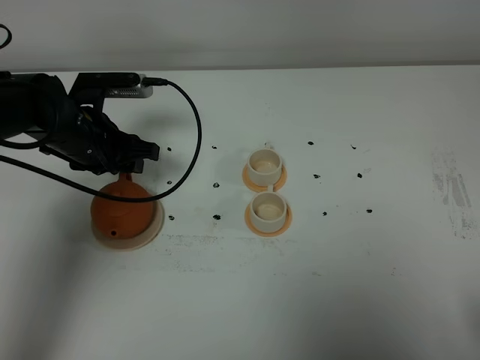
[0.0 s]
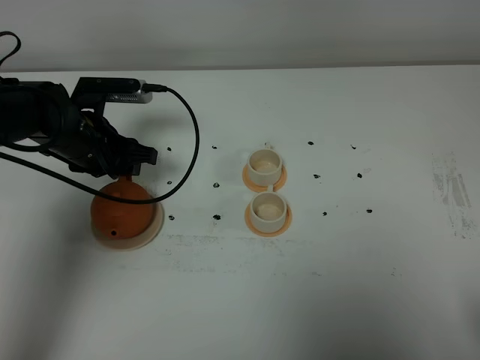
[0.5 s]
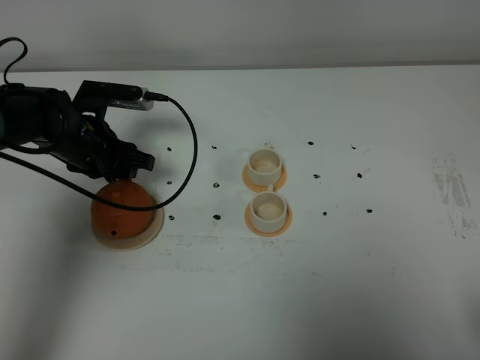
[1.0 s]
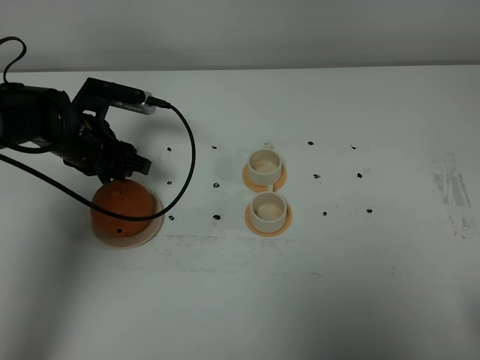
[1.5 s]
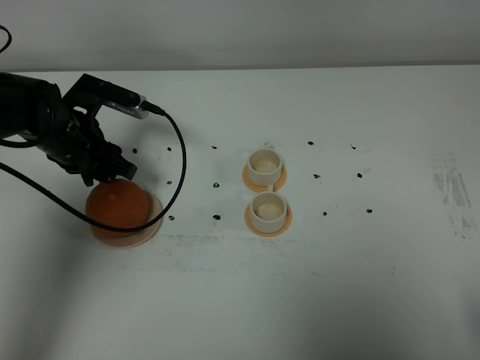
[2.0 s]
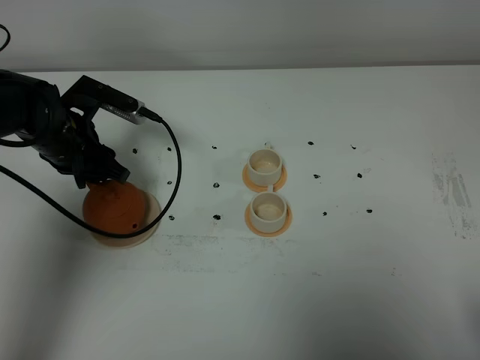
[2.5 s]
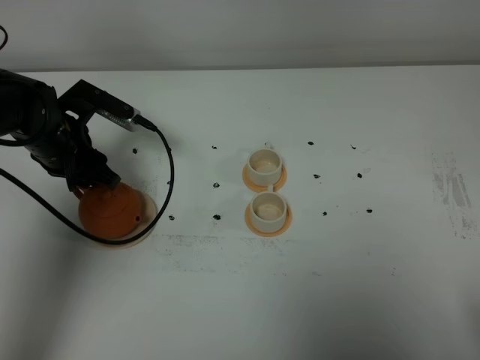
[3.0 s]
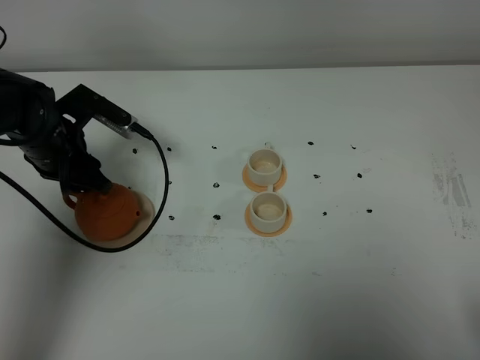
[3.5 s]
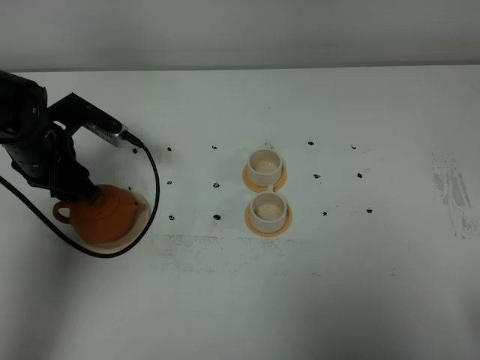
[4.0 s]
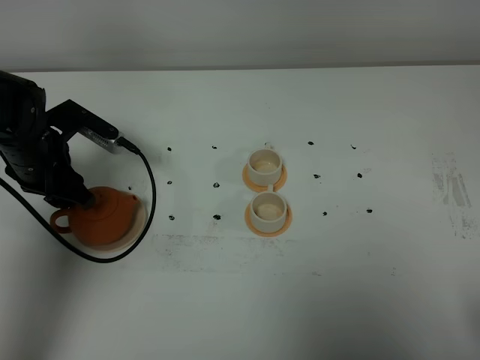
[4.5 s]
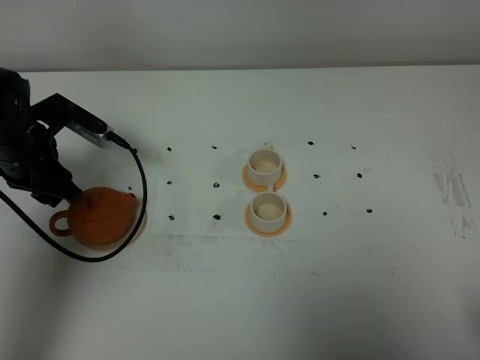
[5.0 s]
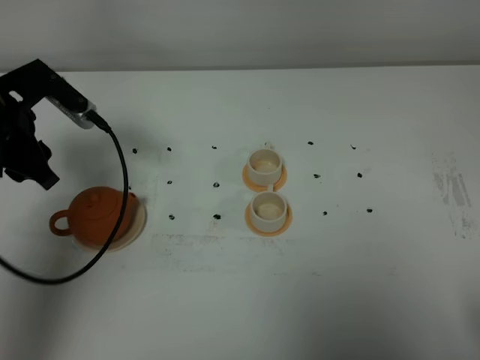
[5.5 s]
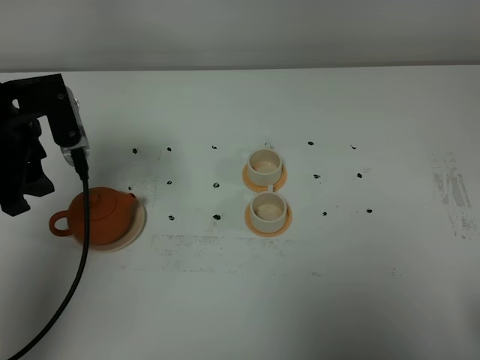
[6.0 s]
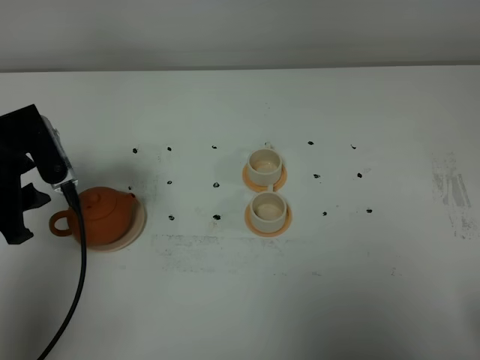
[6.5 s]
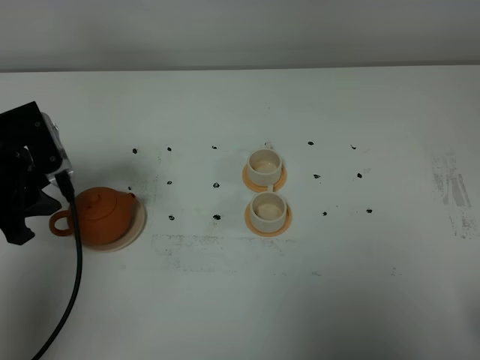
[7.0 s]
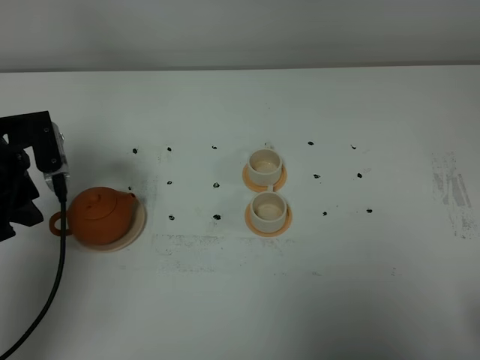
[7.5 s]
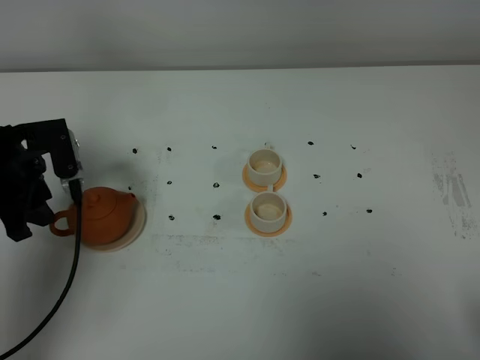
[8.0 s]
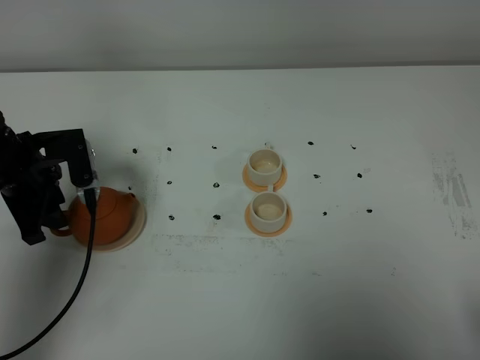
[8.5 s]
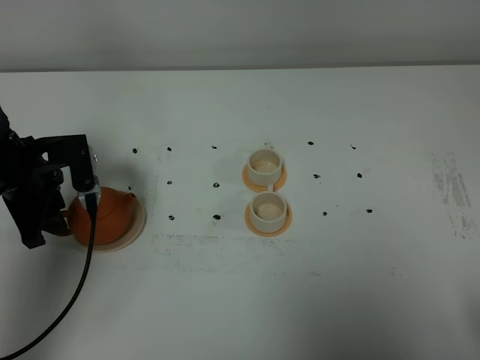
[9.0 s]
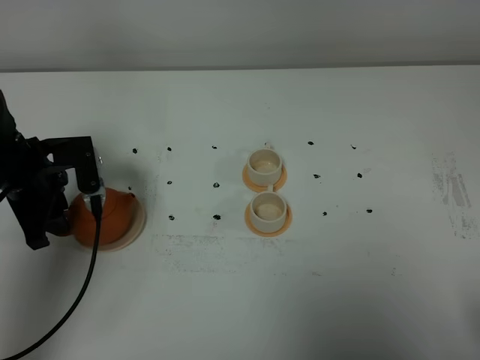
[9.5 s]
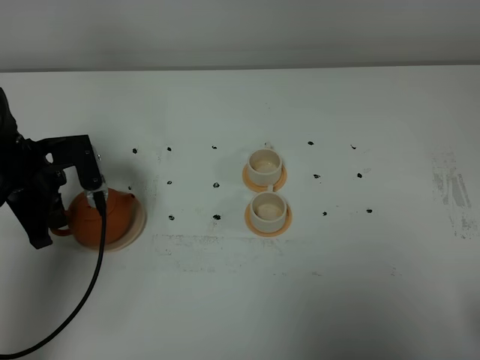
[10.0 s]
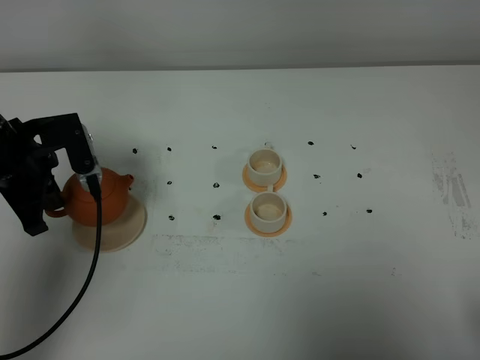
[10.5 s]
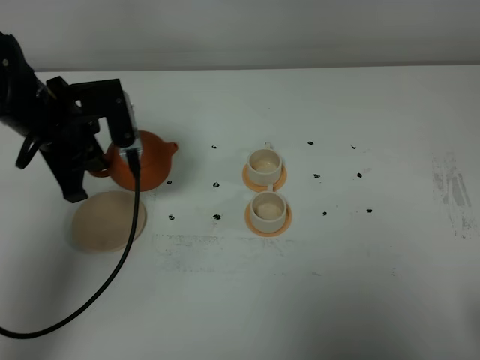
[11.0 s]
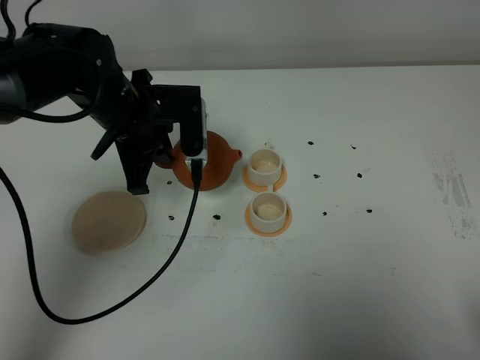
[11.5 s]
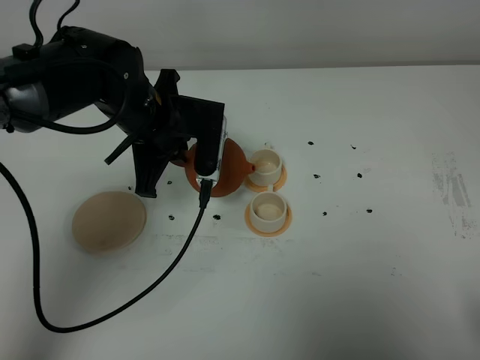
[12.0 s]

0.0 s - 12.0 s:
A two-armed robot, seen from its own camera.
Task of the whole recording: grasp the brown teapot and pour the tea into the two white teacups one by one, put the brown teapot back in its original place.
Step, 0.0 s - 10.0 s: Pick up the teapot with the left gripper.
2.0 s - 4.0 s: The grippers stay close to where they were, moving slightly.
4.0 s - 6.0 s: The left gripper is displaced upward and backward by approximately 10 cm.
6.0 s - 8.0 s: The left gripper moves downward, roughly 10 cm.
8.0 s - 10.0 s: The left gripper closes.
10.0 s - 12.0 s: The left gripper moves to the right, about 15 cm.

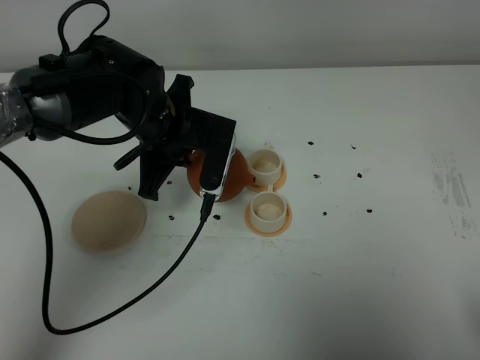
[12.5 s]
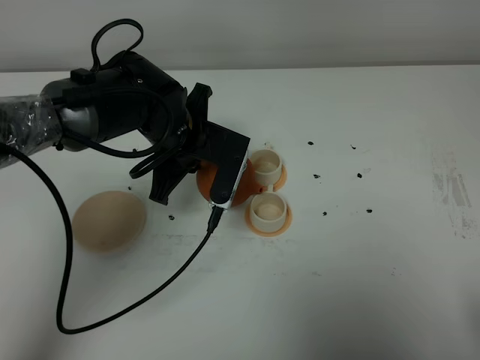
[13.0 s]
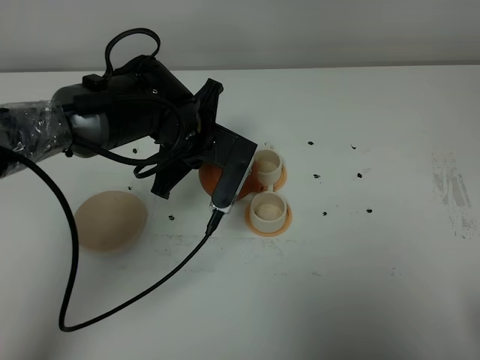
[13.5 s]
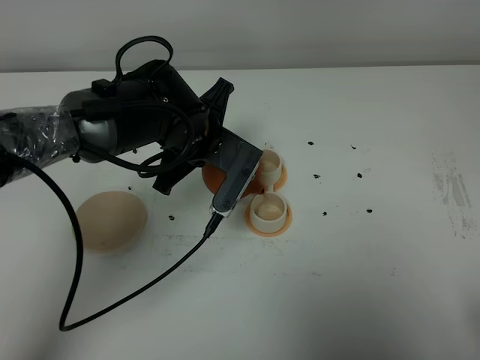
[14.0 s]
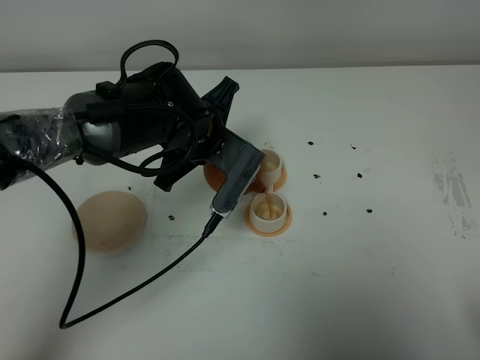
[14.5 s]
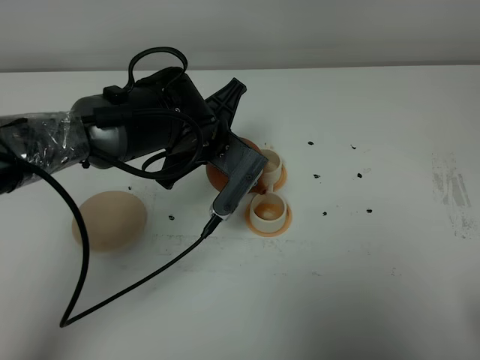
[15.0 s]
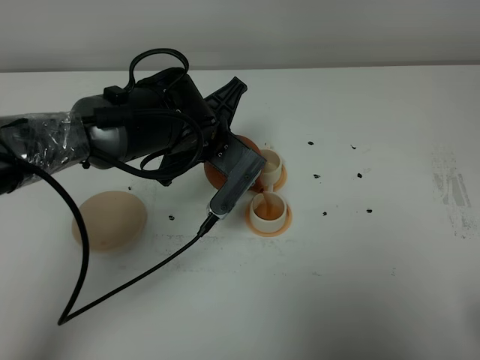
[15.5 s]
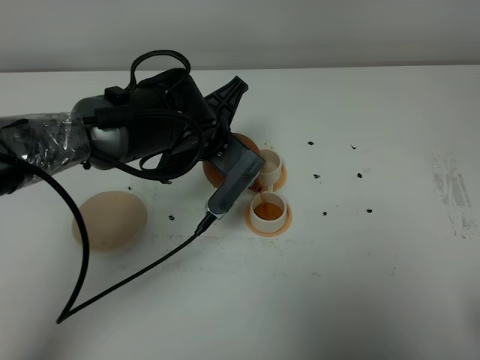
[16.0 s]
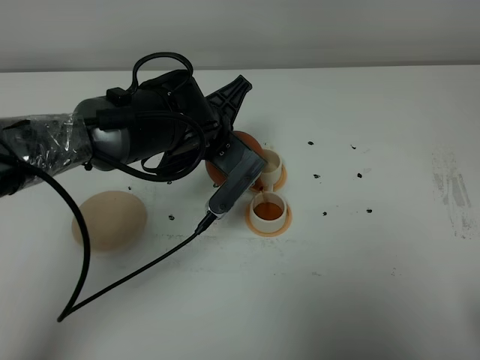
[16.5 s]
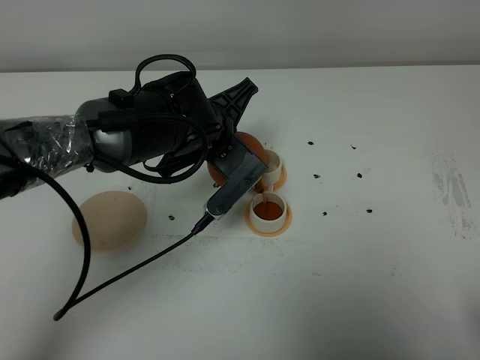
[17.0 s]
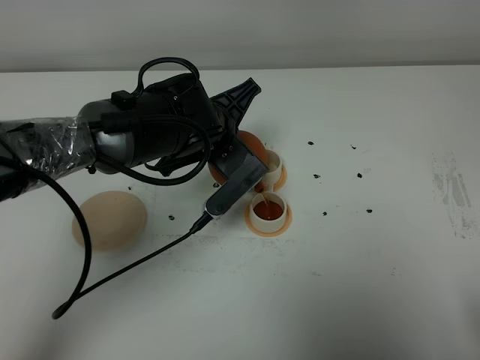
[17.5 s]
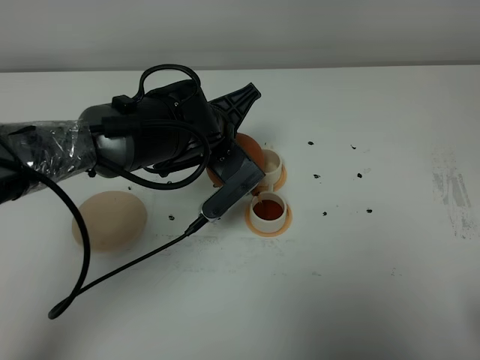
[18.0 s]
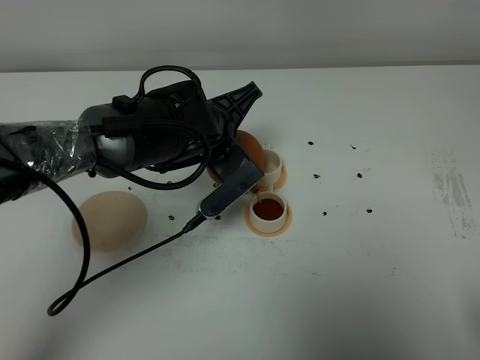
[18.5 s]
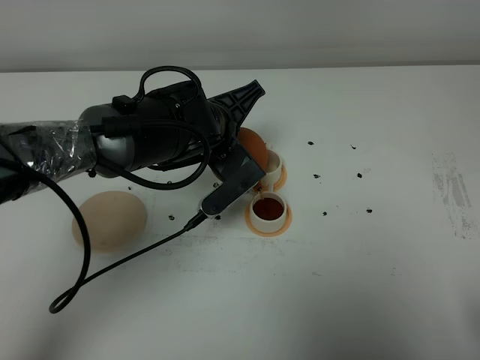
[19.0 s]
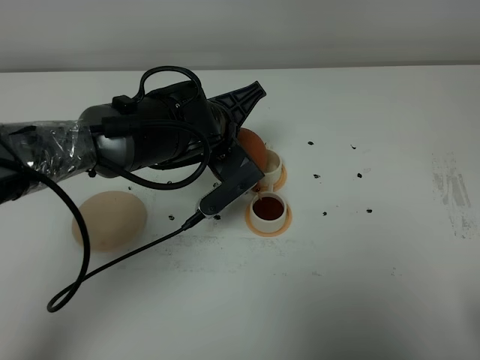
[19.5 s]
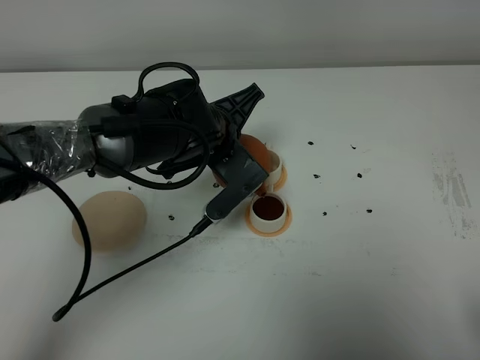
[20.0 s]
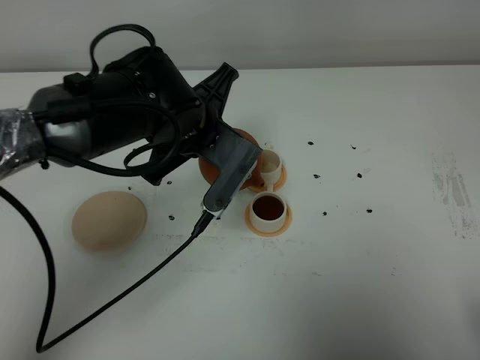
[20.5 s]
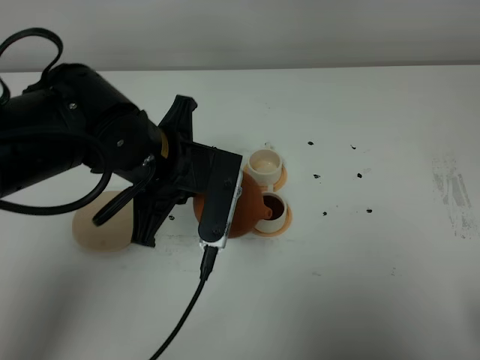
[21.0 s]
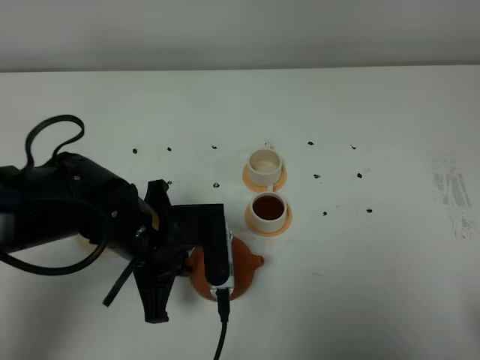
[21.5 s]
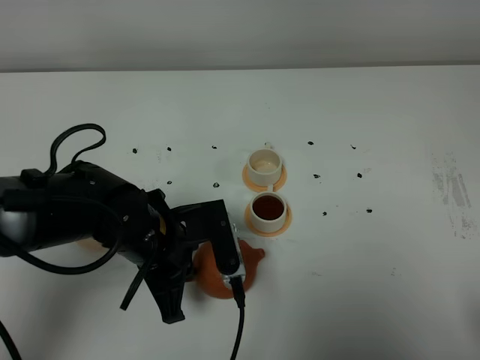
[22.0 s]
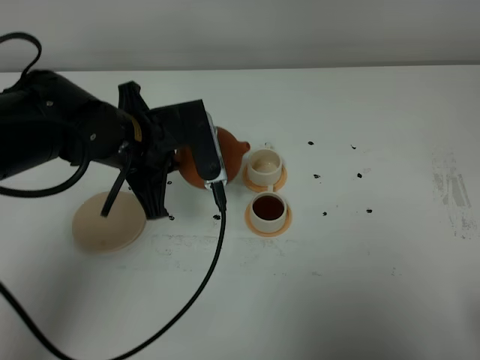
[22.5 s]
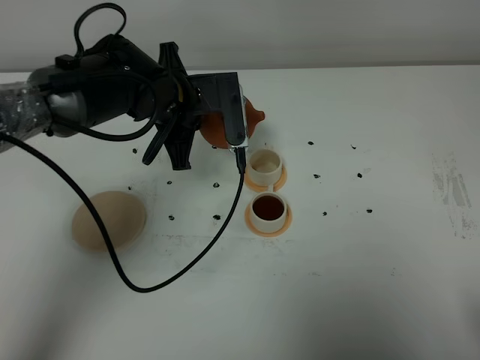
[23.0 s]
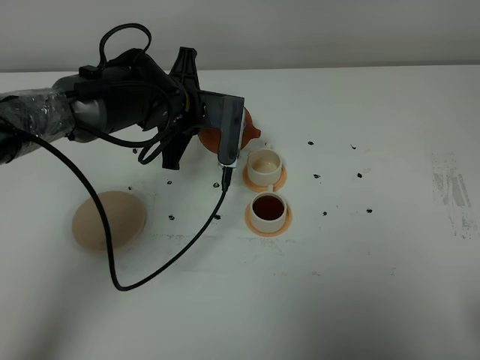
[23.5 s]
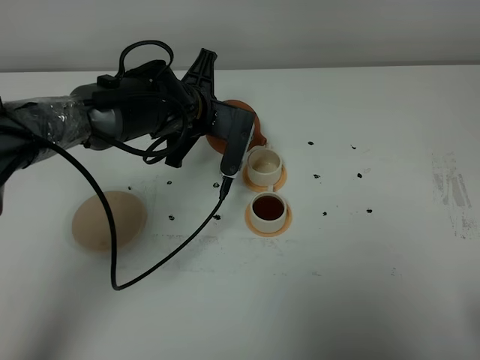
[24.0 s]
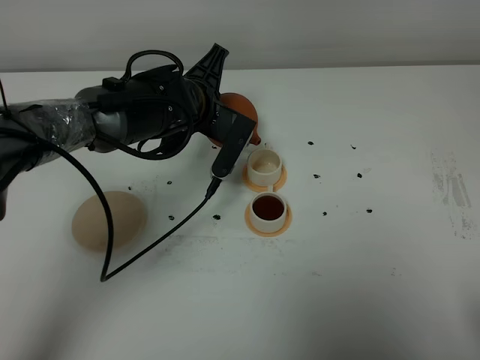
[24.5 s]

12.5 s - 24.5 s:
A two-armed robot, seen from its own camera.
Task of the whole recording: grasp the brown teapot and pour the tea into the two white teacups one by one, put the brown teapot back in its original place.
14.5 s - 16.5 s: There are only small adjustments of the grippers.
16.5 s - 20.5 s: The grippers stay close to where they were, moving slightly.
20.5 s - 22.5 s: The left gripper travels to the left by approximately 5 cm, and moves roughly 10 cm backward and comes back.
22.5 s - 24.5 s: The left gripper is displaced forward and to the right by approximately 10 cm.

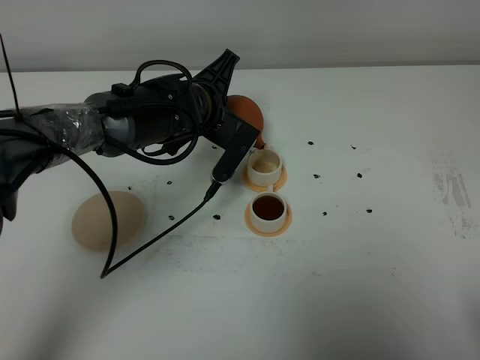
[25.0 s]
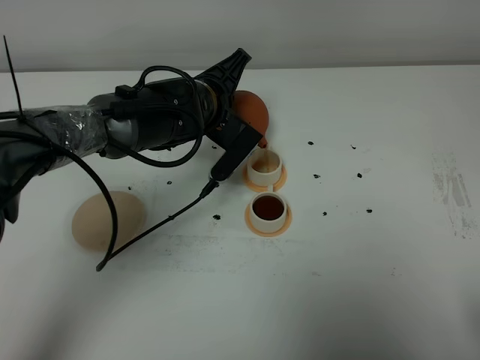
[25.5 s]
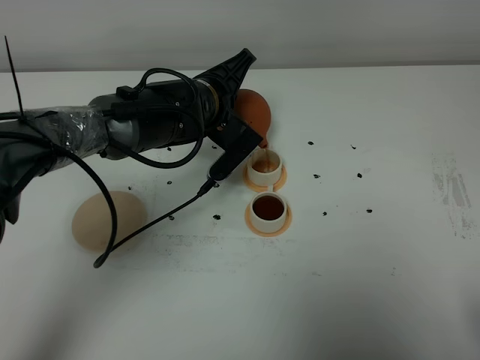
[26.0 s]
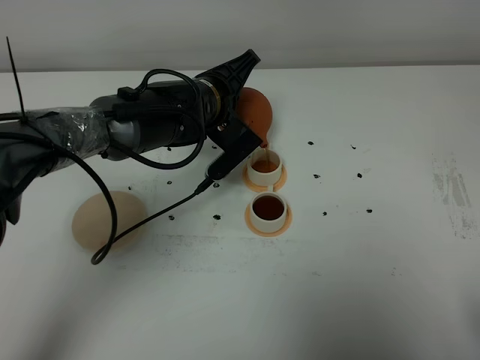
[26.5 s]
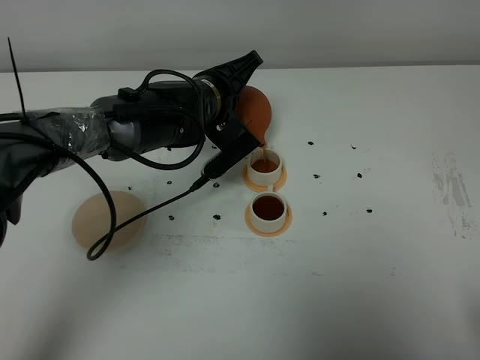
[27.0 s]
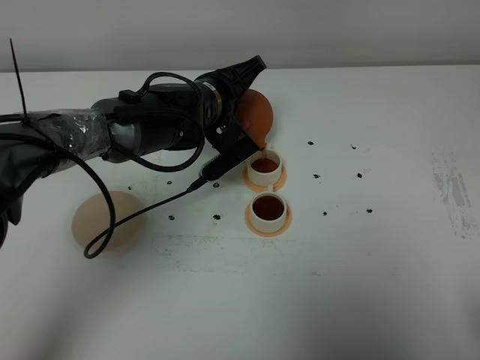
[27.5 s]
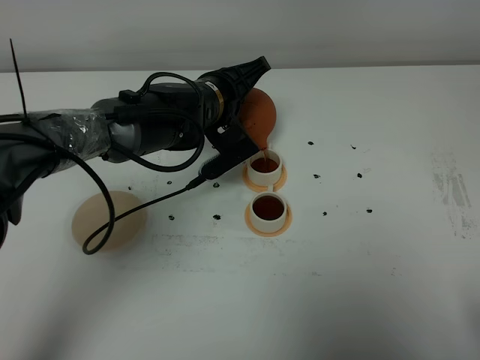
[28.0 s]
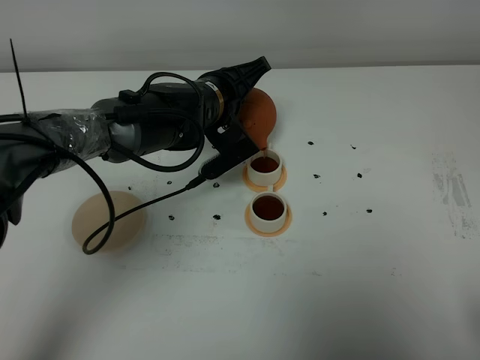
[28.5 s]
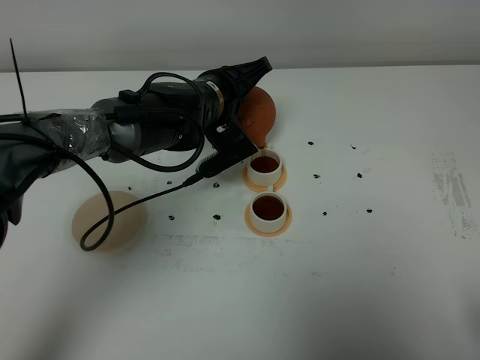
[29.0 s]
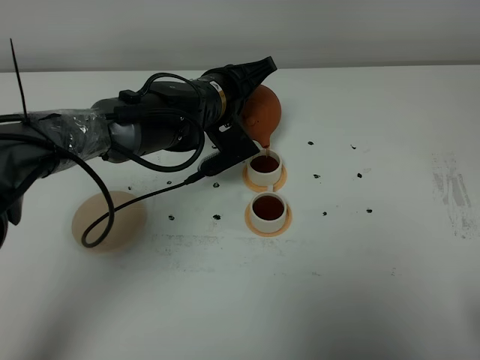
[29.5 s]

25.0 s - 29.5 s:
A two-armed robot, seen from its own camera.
Task of the whole recording: grasp the brown teapot and pour the tea into the two white teacups one by one, put the brown teapot back in its original place.
25.0 s - 27.0 s: The grippers stay close to where they were, moving slightly.
27.0 s - 29.5 s: The grippers stay close to where they were, moving slightly.
